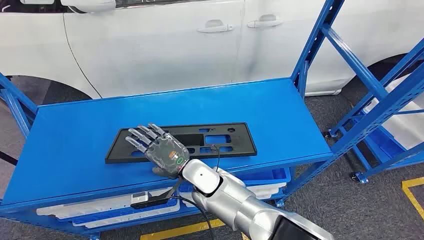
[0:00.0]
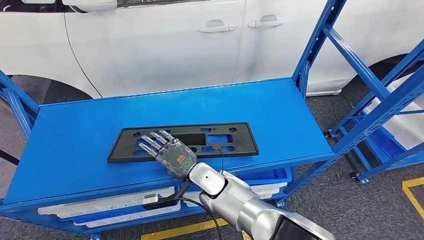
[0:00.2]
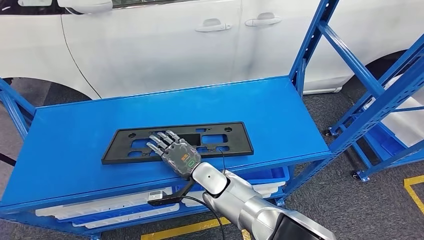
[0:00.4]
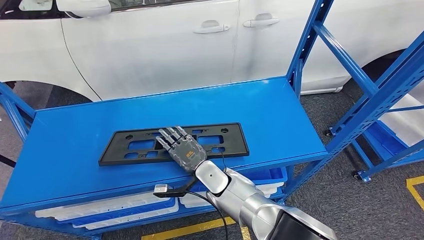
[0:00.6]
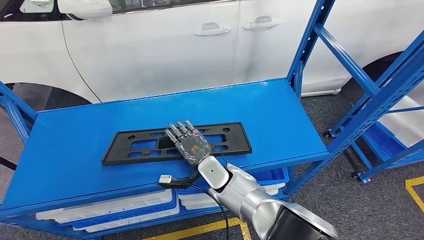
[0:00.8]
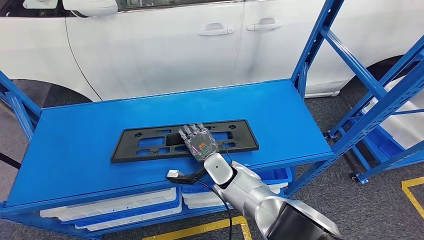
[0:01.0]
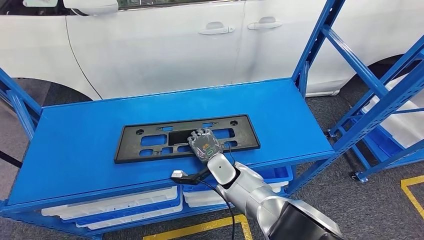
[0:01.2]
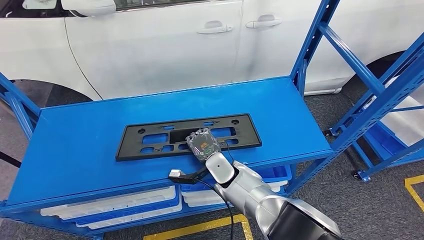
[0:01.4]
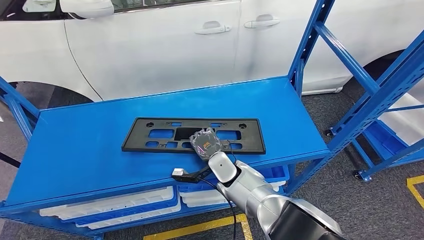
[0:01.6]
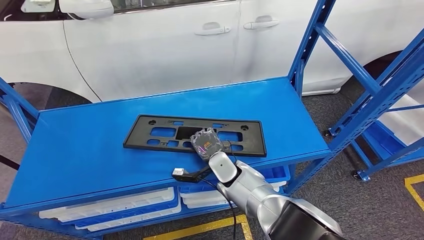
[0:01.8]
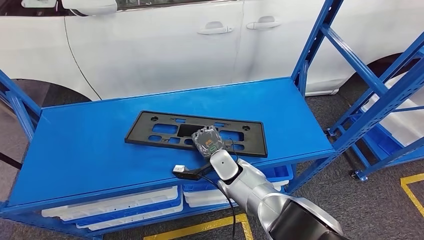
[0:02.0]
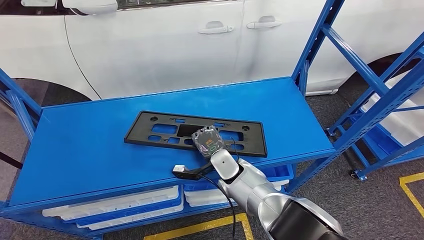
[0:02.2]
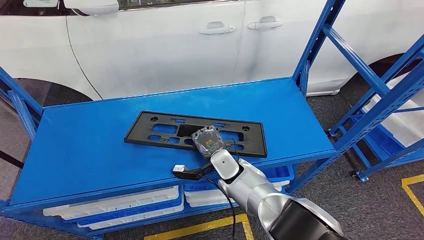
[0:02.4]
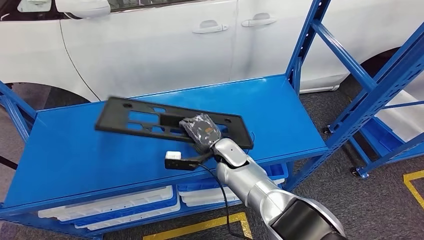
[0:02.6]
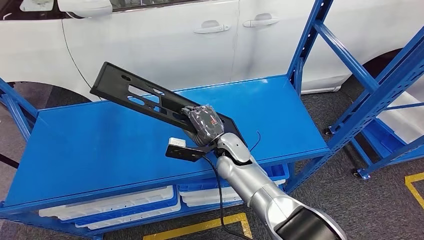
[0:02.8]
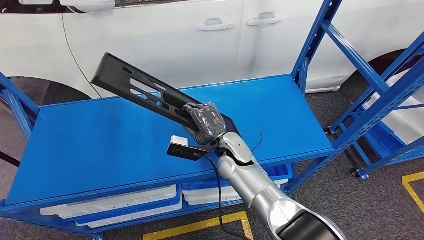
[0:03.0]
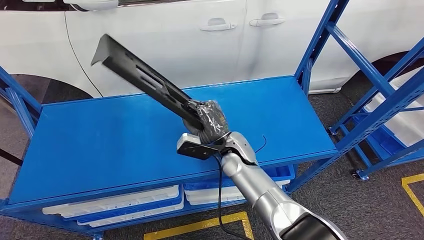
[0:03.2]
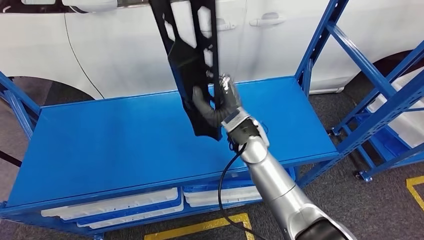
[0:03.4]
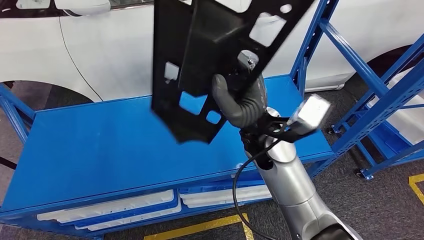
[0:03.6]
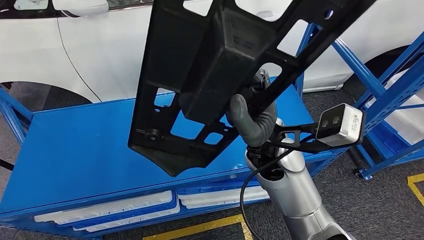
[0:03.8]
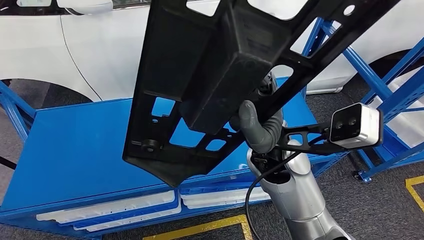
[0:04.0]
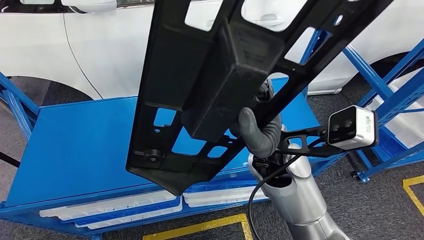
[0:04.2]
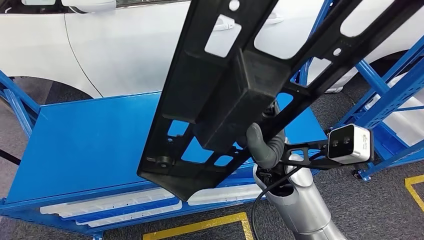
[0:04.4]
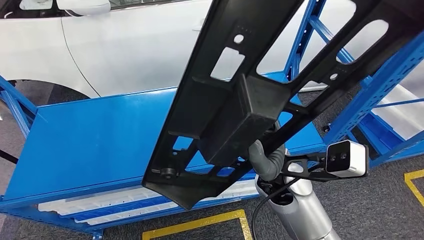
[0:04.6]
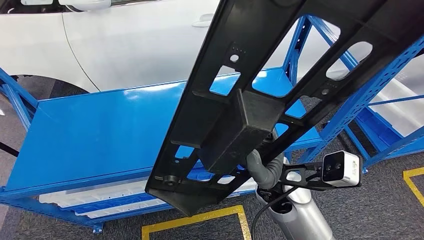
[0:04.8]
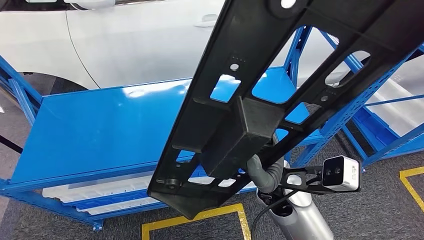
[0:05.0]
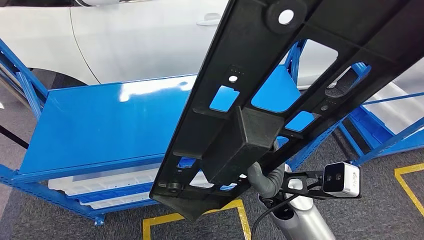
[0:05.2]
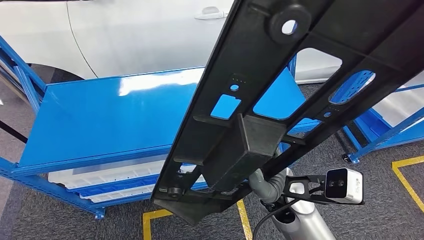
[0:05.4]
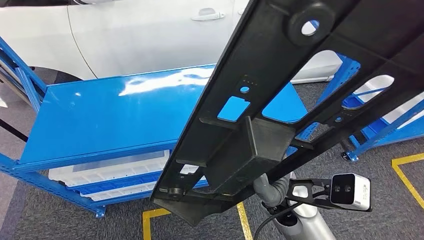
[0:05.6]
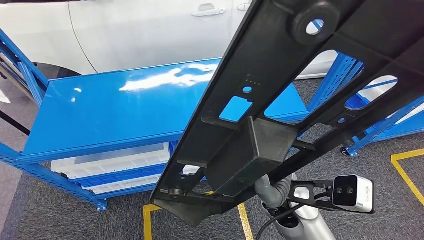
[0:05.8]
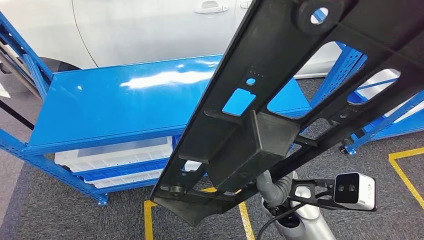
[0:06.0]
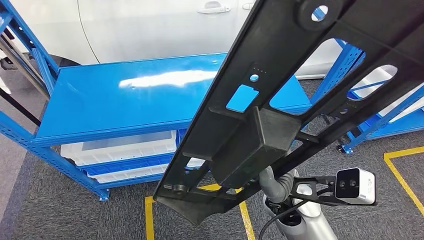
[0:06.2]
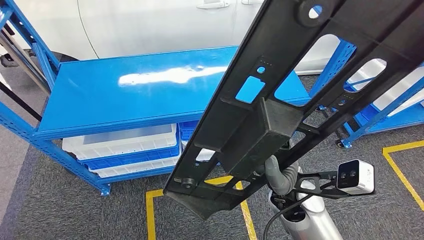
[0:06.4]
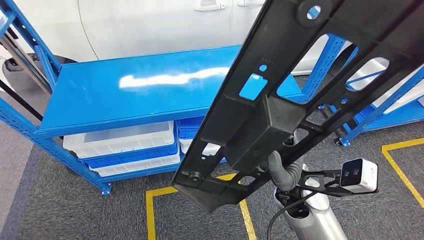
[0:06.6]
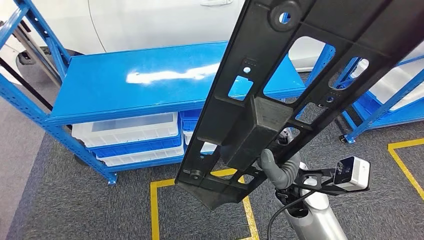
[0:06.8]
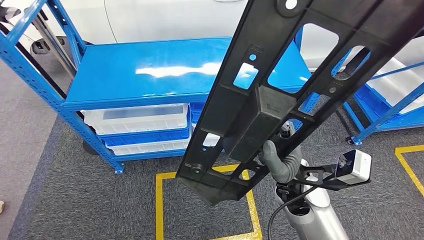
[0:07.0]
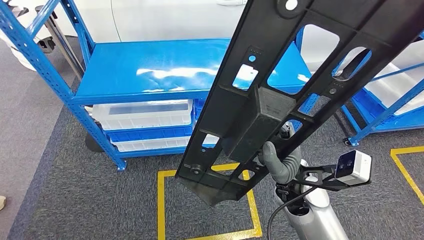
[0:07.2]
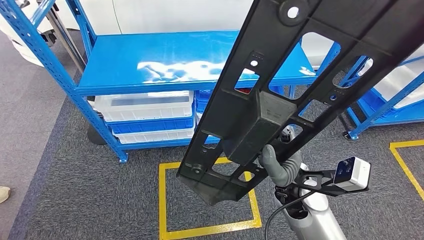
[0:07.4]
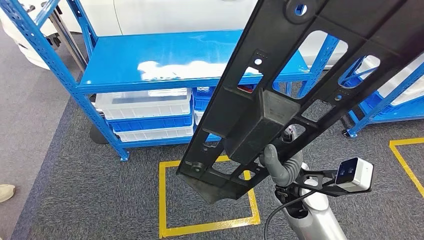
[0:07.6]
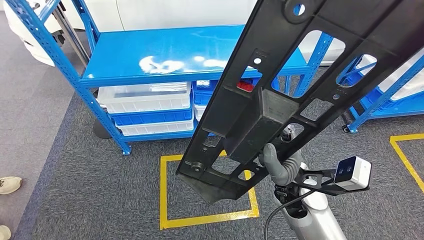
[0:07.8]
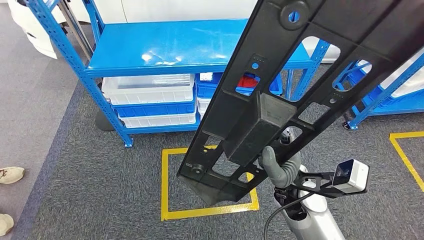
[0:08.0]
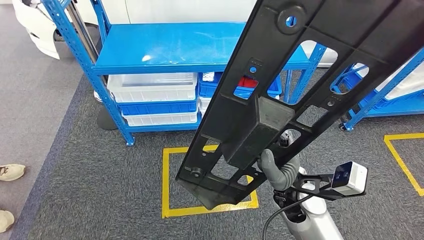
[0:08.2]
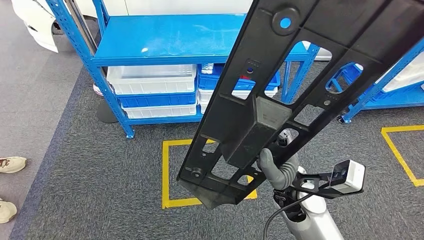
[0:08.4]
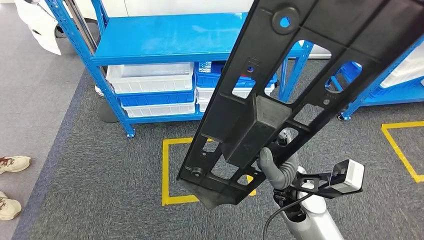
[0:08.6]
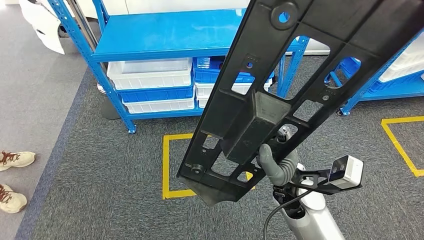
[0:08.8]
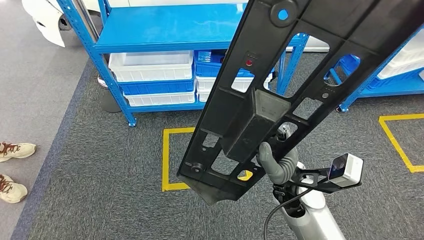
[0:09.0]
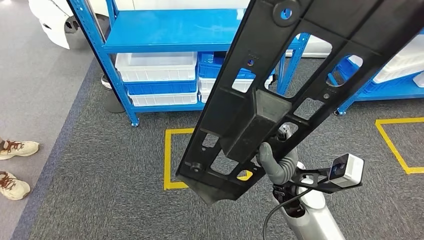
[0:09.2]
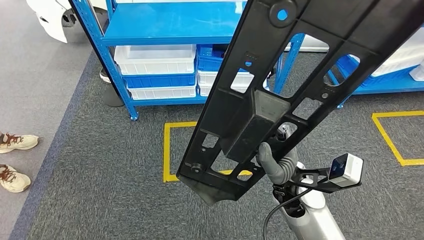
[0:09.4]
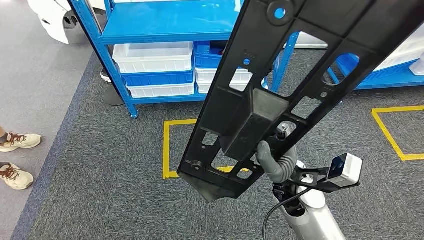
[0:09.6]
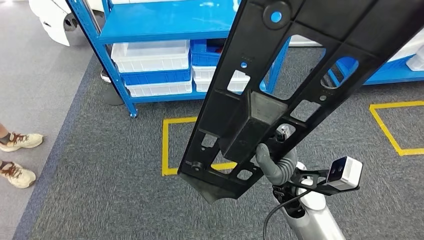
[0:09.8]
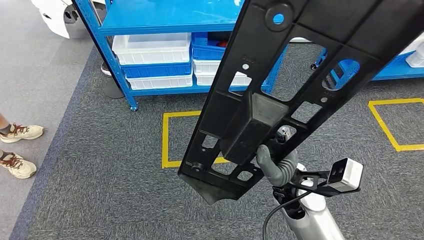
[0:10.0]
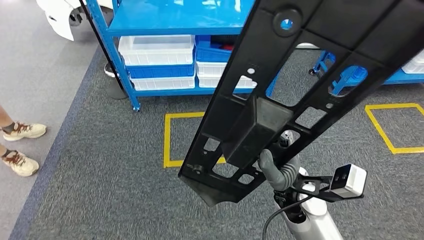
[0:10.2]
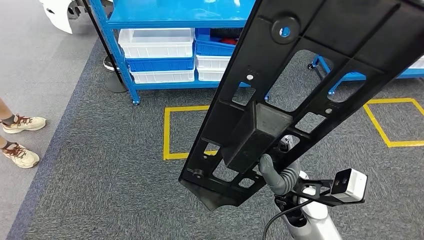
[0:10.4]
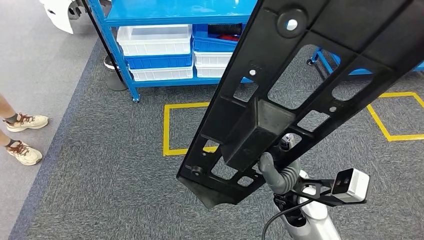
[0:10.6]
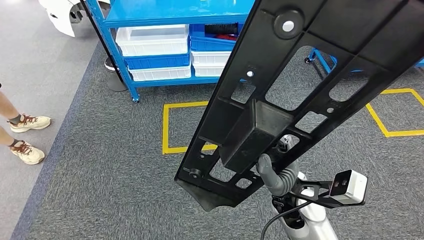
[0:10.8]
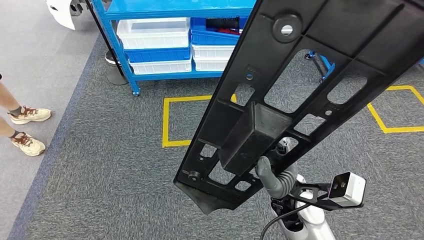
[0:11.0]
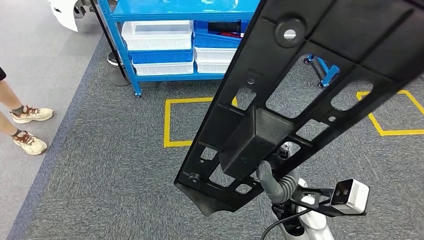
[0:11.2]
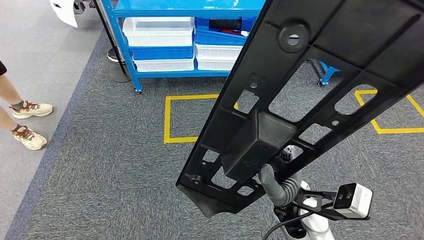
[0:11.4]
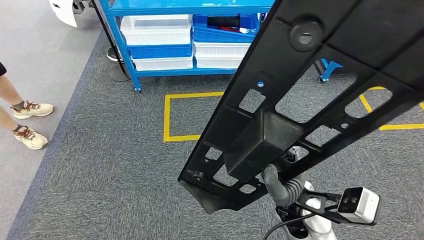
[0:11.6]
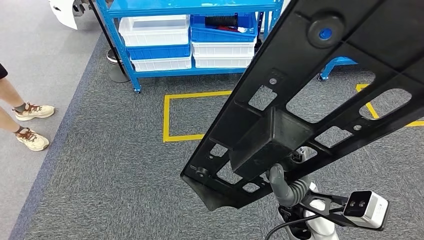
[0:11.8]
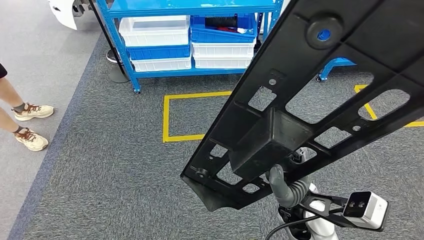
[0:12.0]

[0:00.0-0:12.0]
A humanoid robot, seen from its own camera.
Step, 0:00.0 to 0:04.0: Pick up the large material from the shelf.

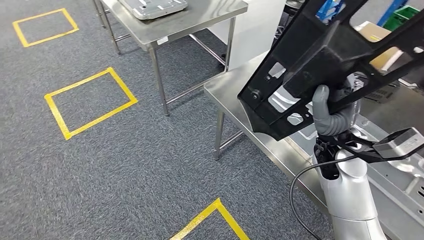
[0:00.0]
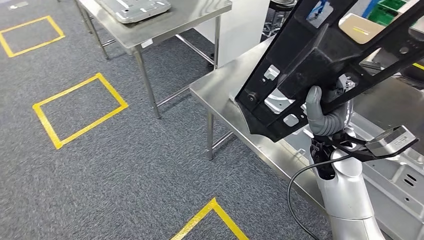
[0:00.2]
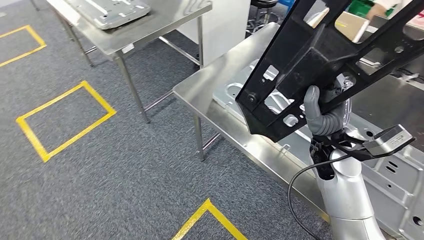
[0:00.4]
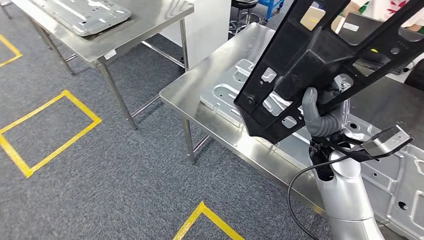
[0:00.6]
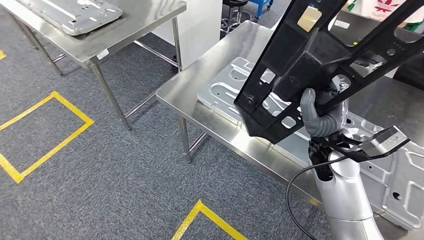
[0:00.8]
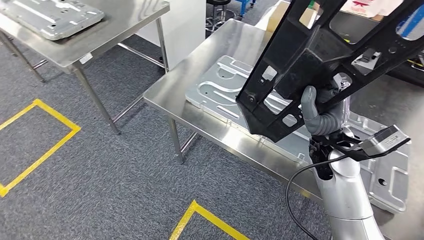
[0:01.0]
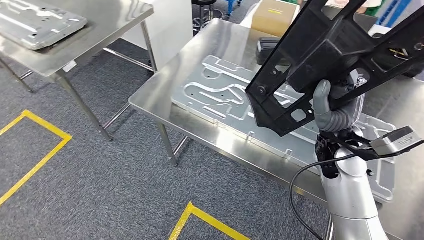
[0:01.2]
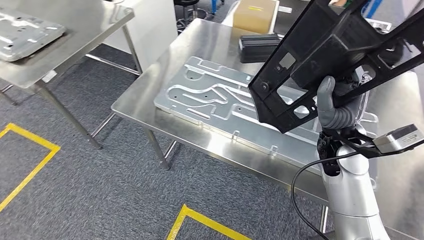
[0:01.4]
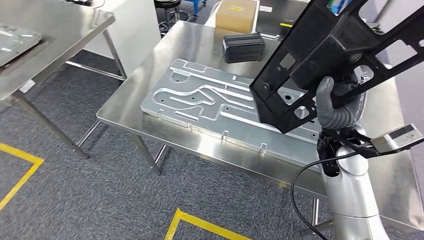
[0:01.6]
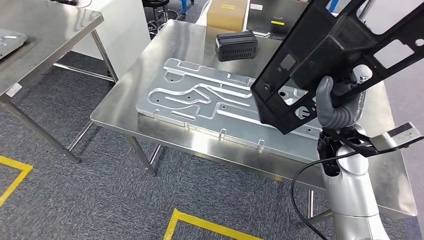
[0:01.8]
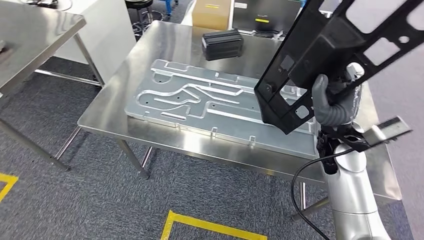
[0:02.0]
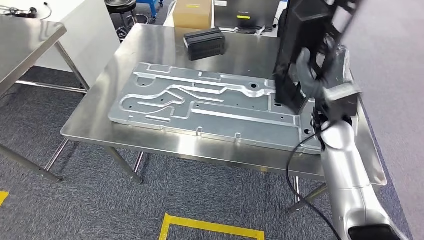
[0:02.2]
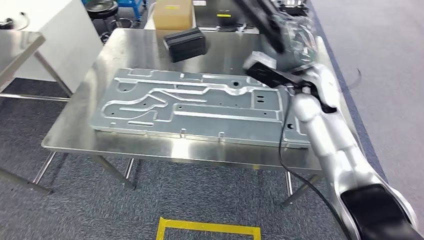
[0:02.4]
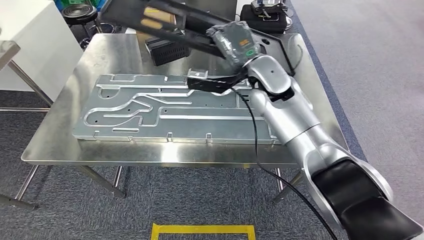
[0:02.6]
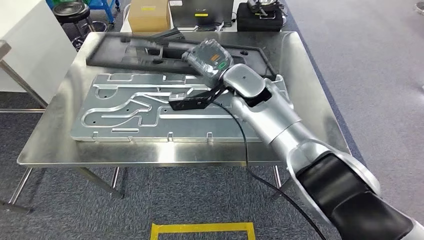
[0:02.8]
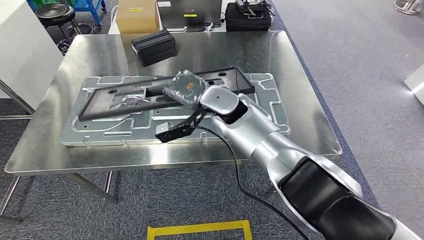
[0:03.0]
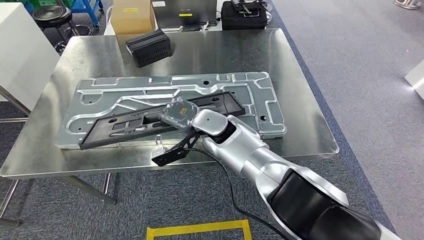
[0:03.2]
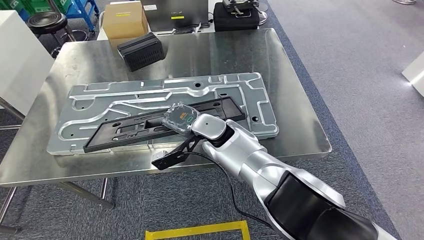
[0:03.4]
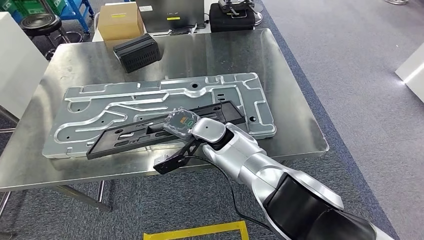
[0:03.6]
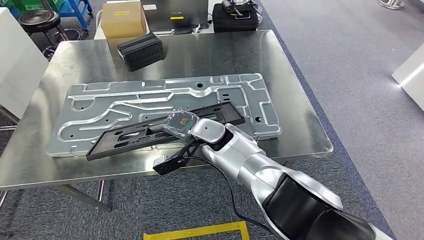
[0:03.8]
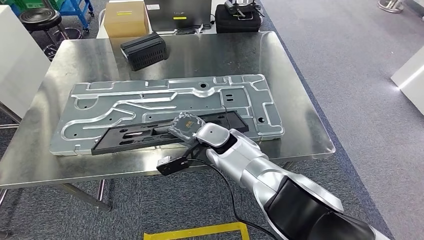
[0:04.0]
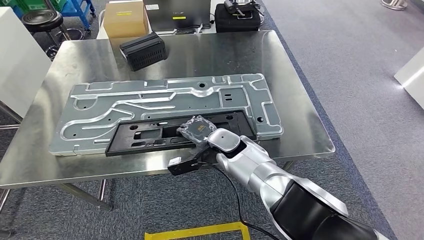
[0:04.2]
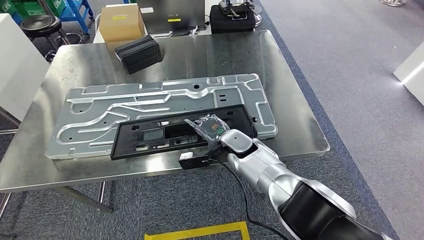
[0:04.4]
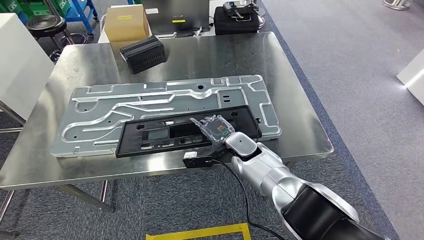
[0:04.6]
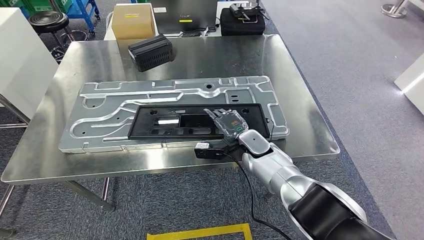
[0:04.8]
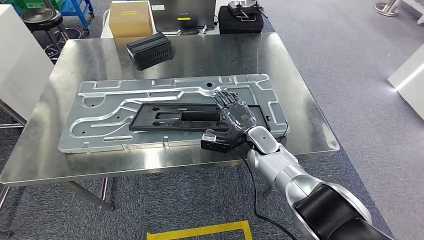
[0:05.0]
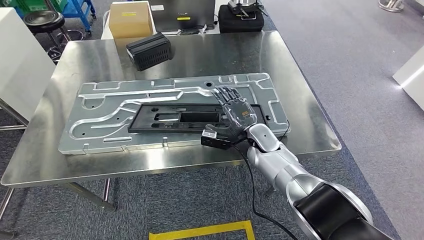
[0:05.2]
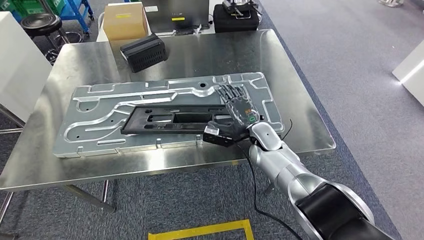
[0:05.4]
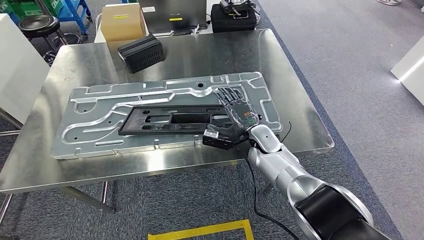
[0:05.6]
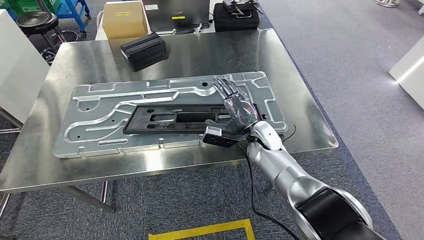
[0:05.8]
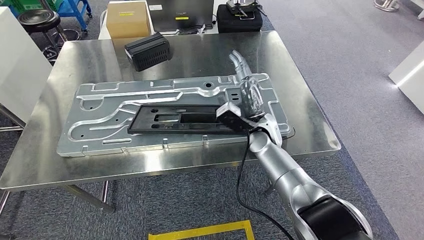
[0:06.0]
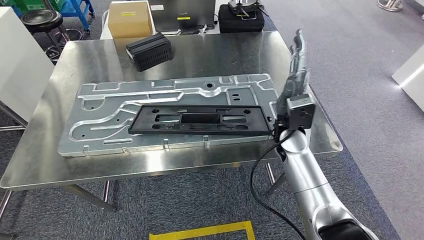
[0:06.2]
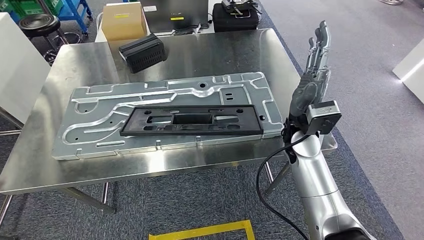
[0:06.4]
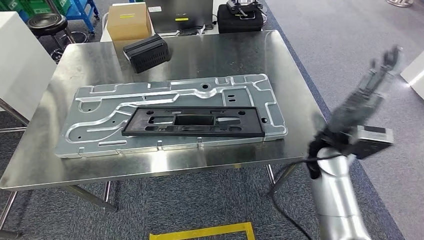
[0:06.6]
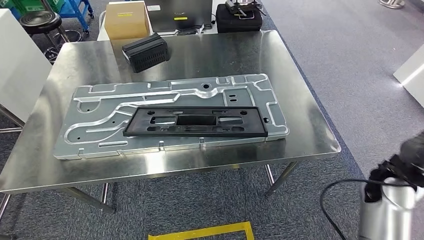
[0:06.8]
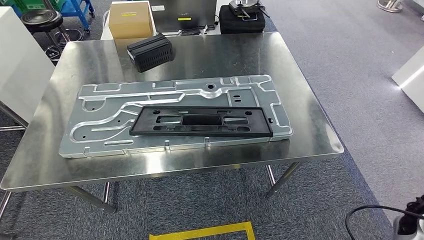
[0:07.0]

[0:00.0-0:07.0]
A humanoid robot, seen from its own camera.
Step, 0:00.0 to 0:02.0: Move the large material to the workbench.
Step, 0:02.2 to 0:05.6: Insert the large material into the corresponding slot on the workbench.
